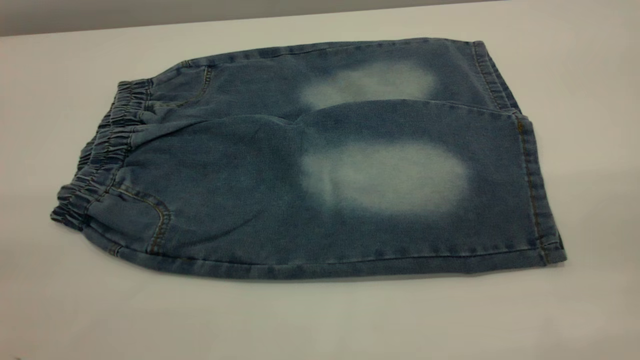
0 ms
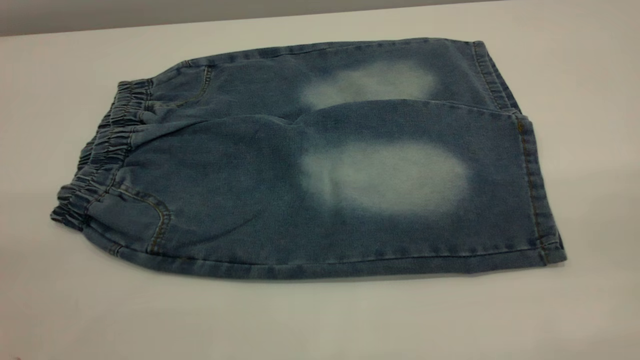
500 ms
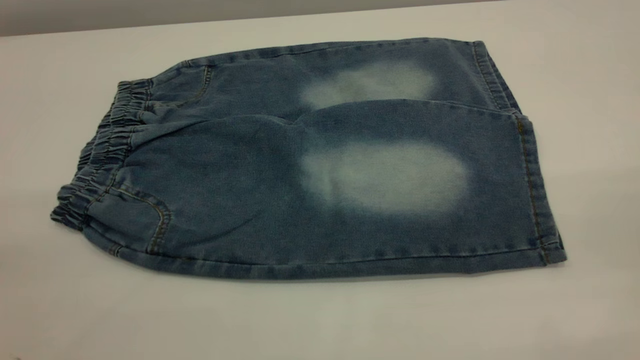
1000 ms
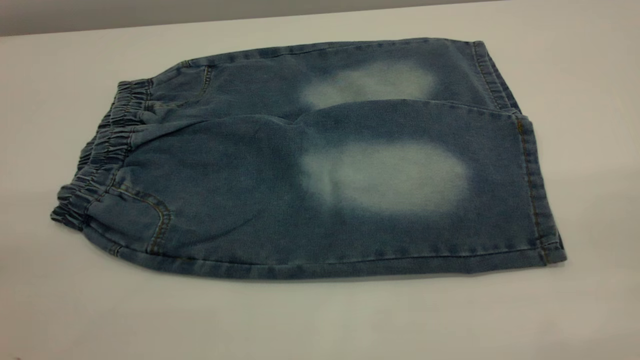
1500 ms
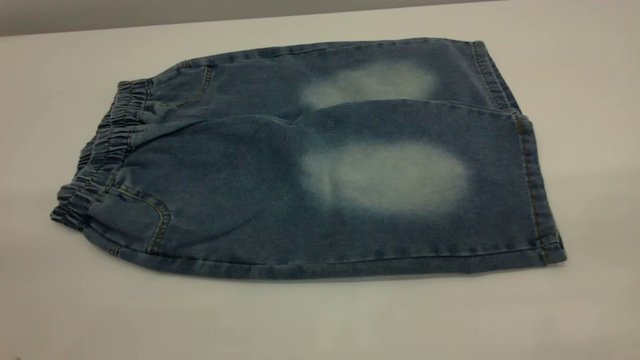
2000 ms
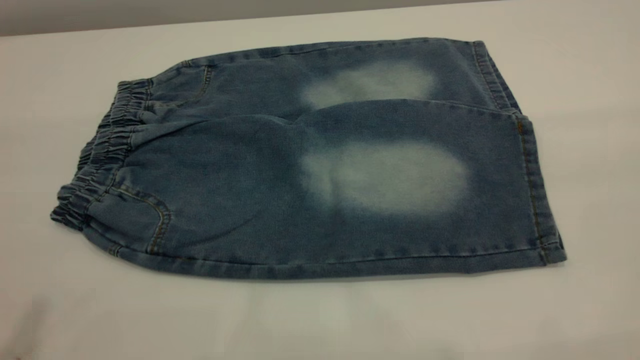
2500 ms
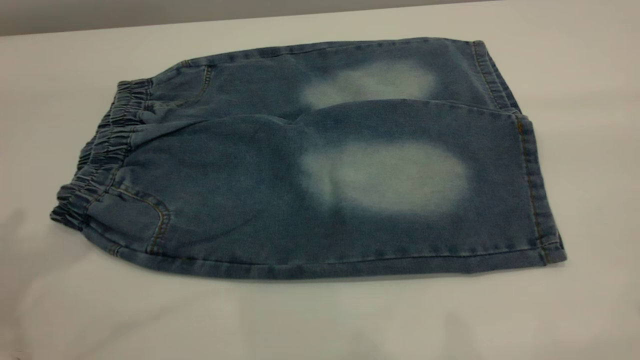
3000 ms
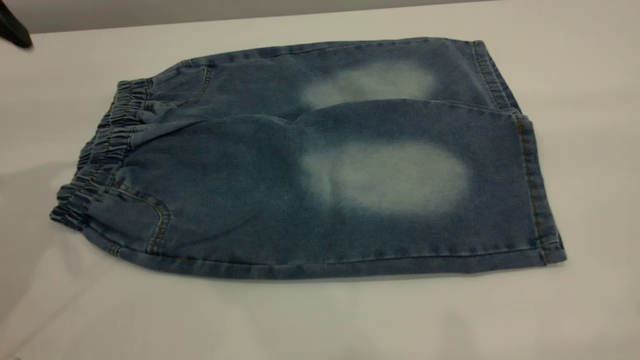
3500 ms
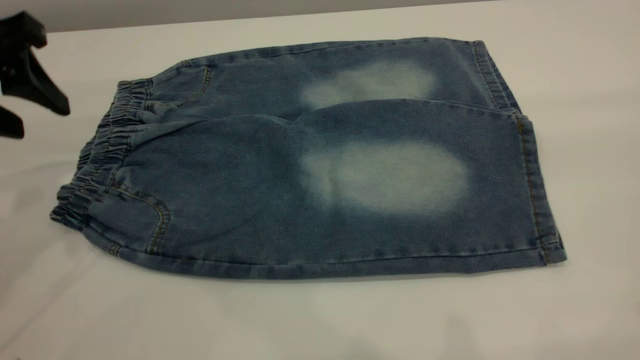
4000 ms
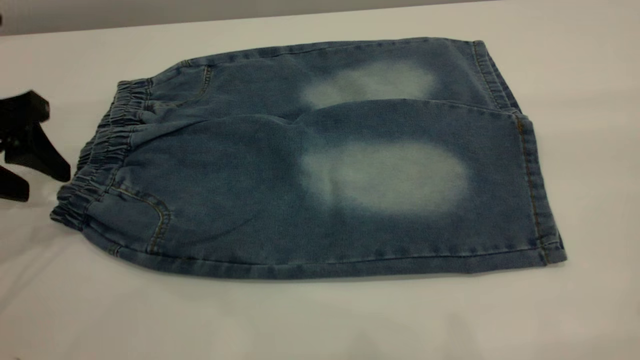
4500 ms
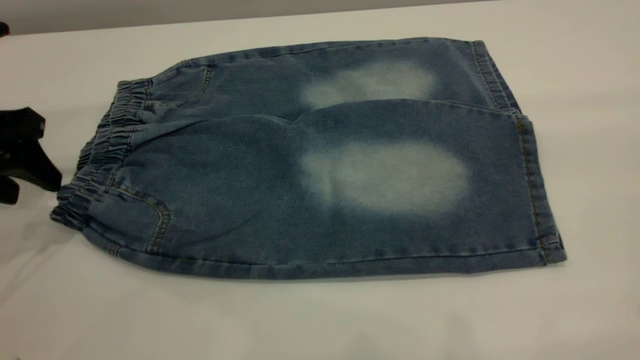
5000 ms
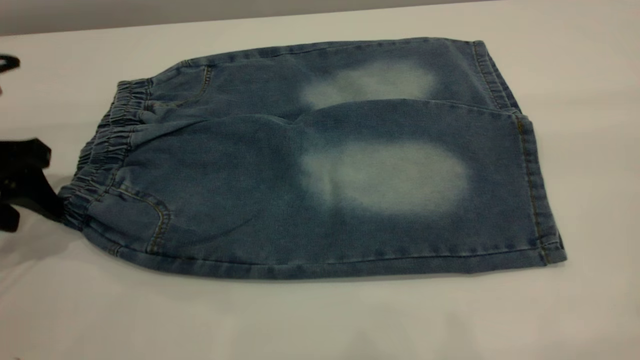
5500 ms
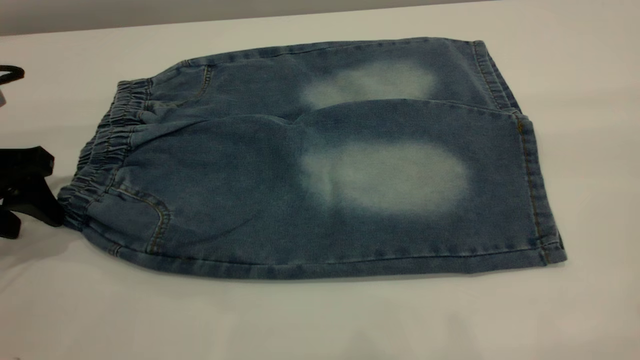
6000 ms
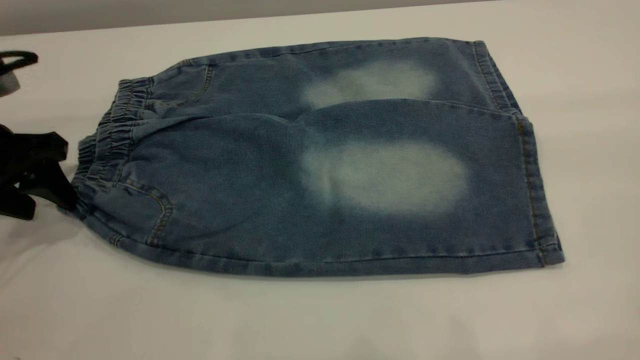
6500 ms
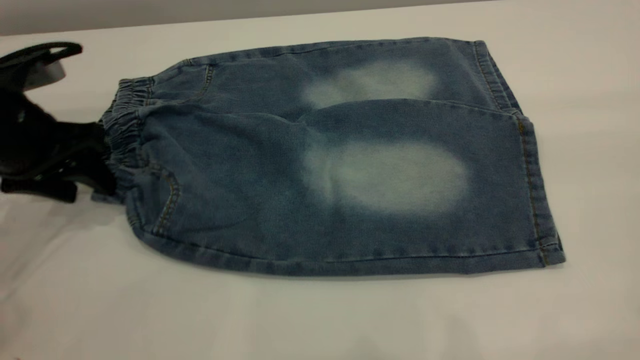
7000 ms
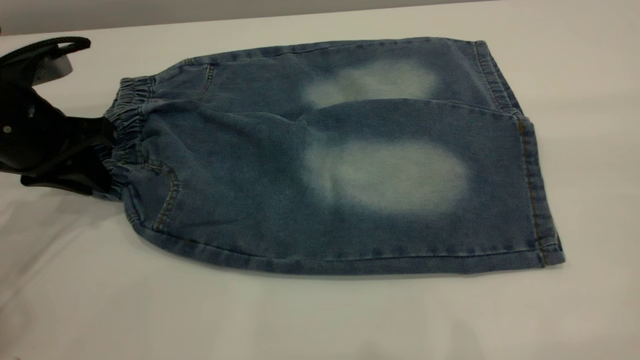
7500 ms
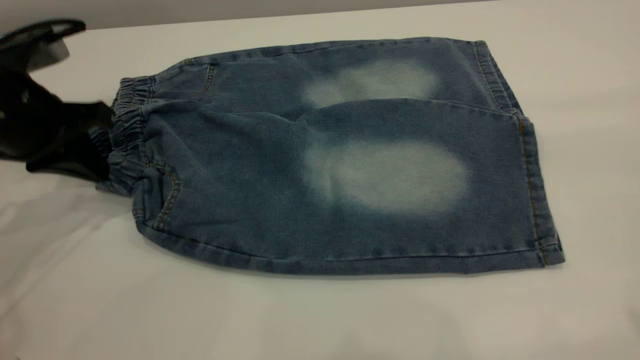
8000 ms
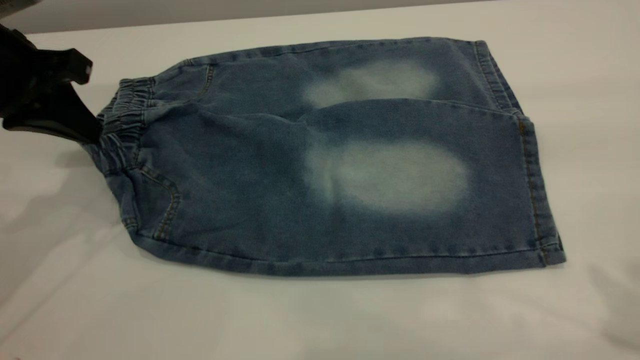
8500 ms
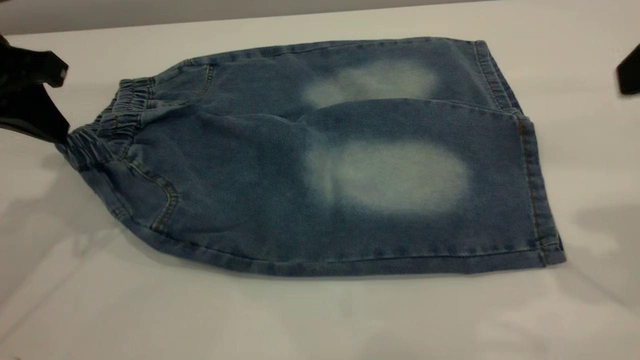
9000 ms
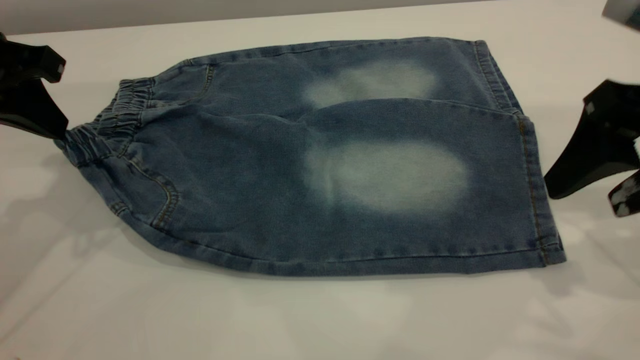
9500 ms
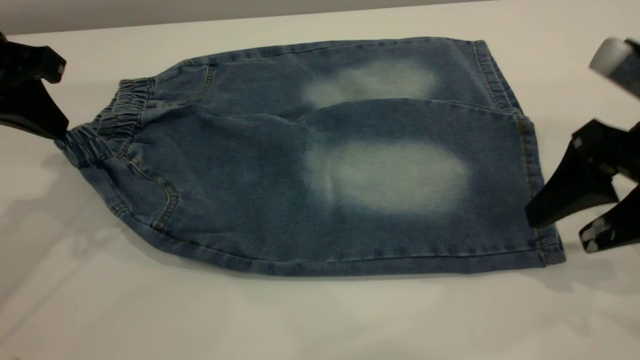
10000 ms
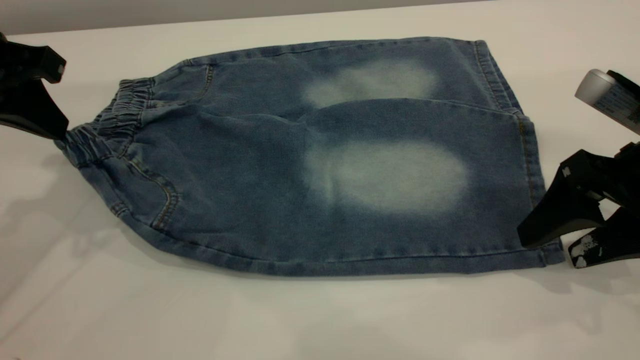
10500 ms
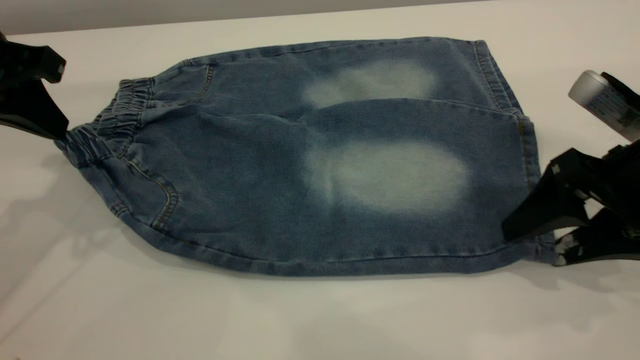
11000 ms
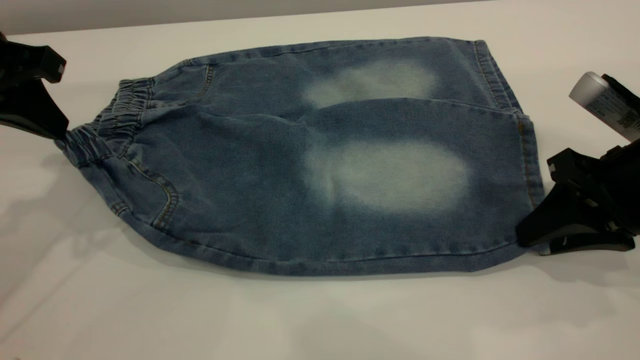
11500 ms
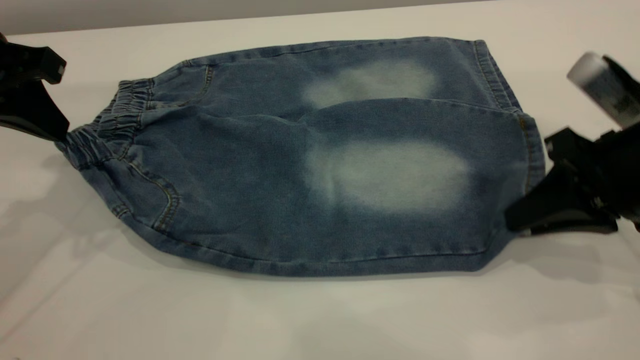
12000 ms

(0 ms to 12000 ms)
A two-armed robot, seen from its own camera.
0 ms - 2000 ms: Both grippers stay put.
2000 ms - 4000 ms: The left gripper moves forward and downward, approximately 30 cm.
4000 ms - 6000 ms: The left gripper travels downward by some 10 cm.
6000 ms - 8000 ms: The left gripper ends up roughly 5 cm from where it was, and closes.
8000 ms - 10000 ms: The left gripper is displaced upward by some 5 cm. Meanwhile the right gripper travels downward and forward by approximately 25 cm.
10000 ms - 12000 ms: The right gripper closes its fingers.

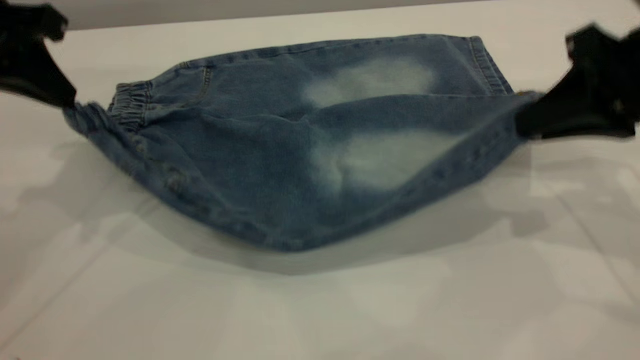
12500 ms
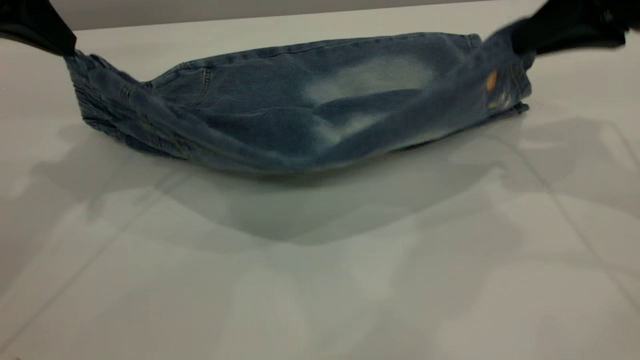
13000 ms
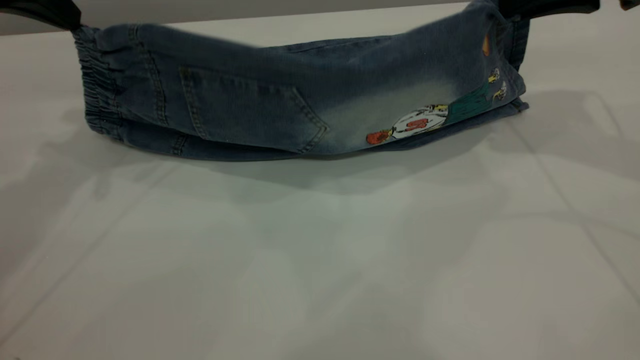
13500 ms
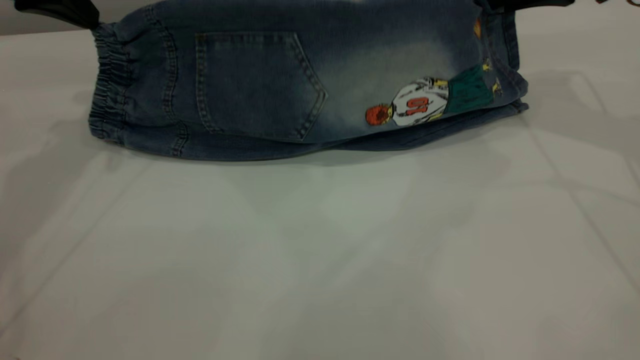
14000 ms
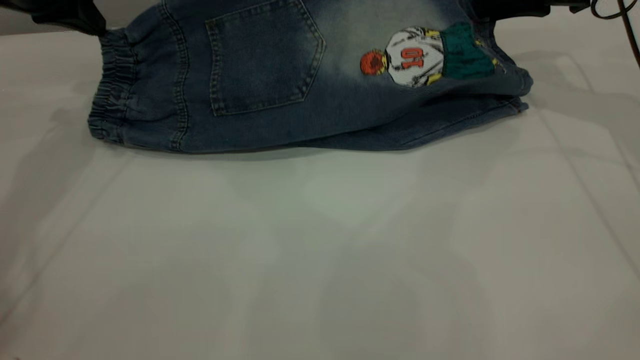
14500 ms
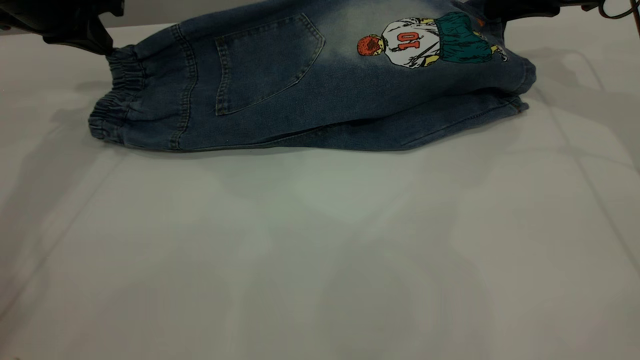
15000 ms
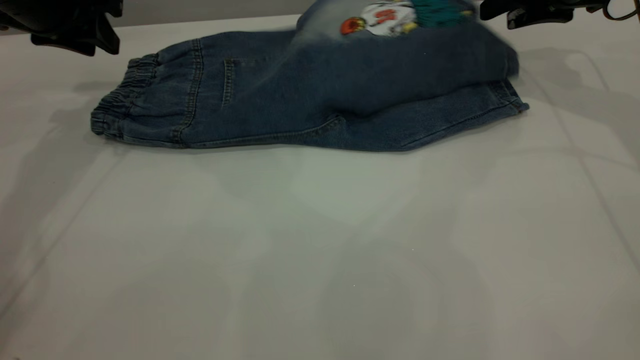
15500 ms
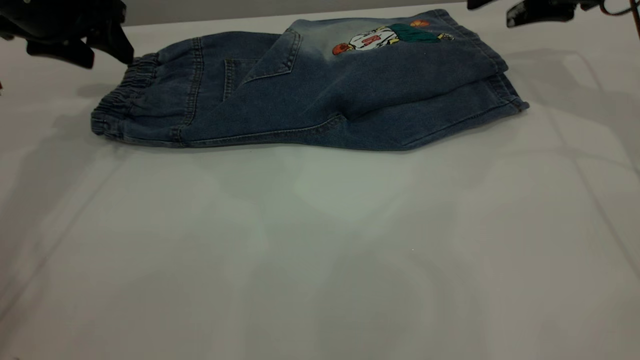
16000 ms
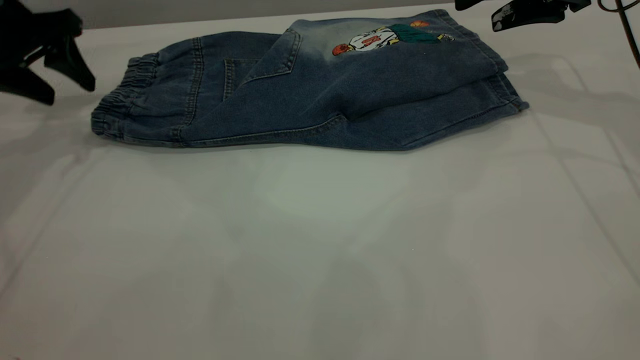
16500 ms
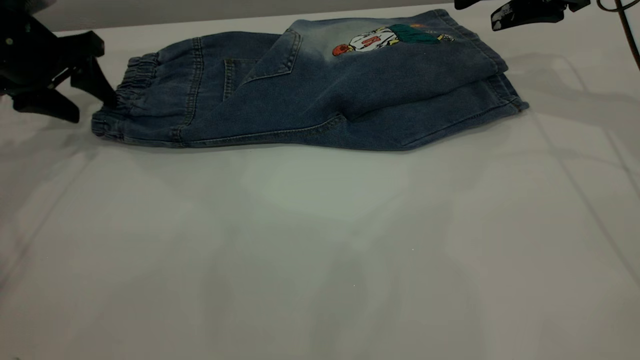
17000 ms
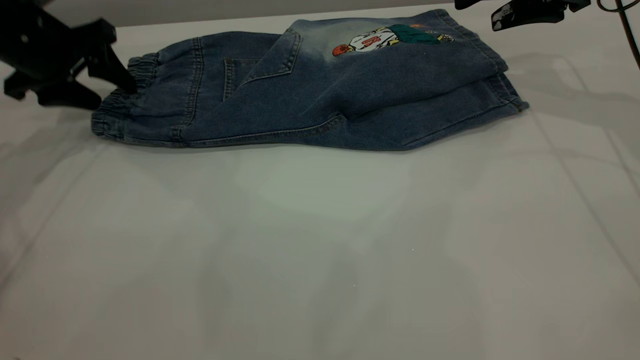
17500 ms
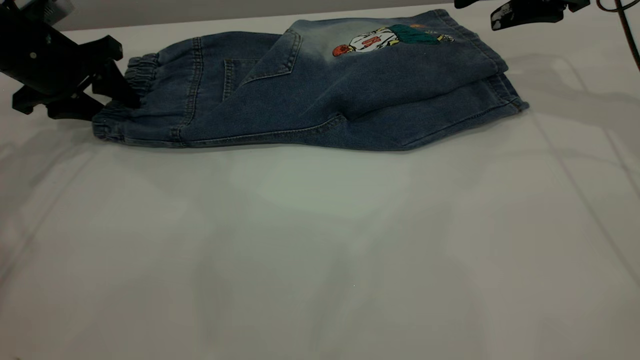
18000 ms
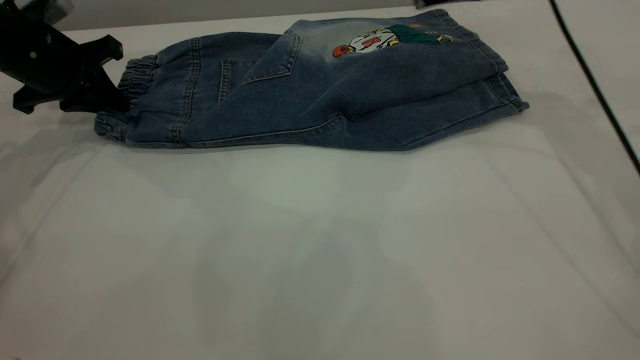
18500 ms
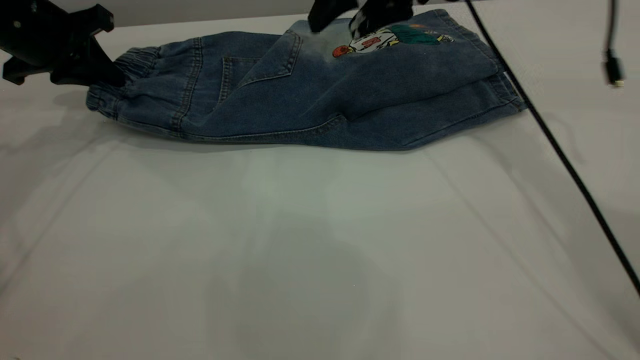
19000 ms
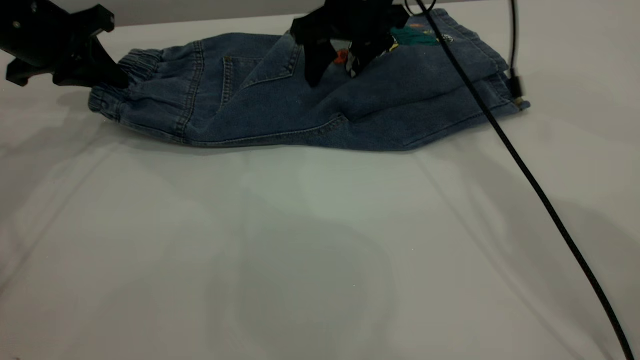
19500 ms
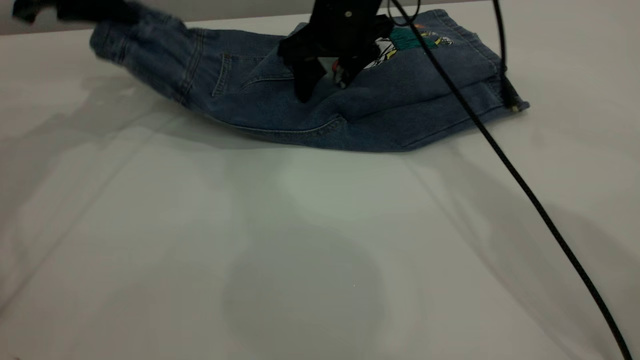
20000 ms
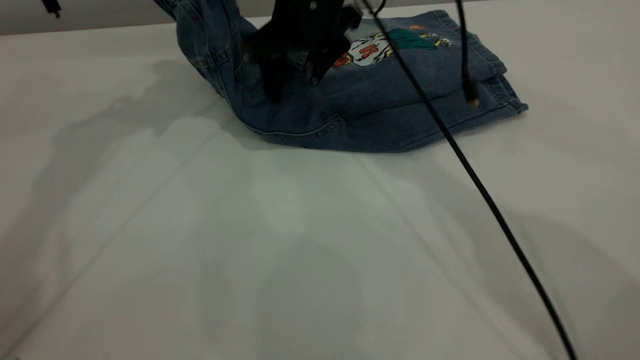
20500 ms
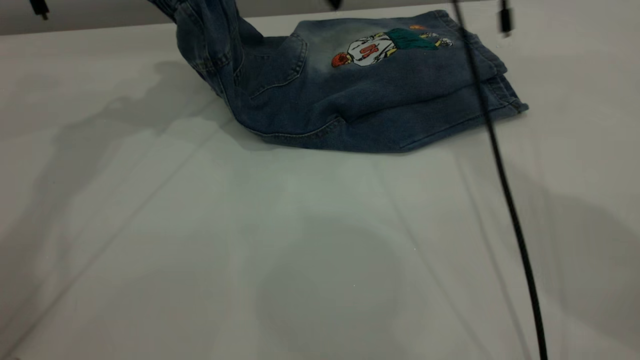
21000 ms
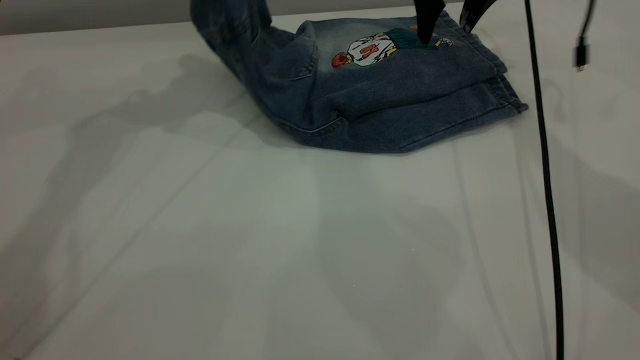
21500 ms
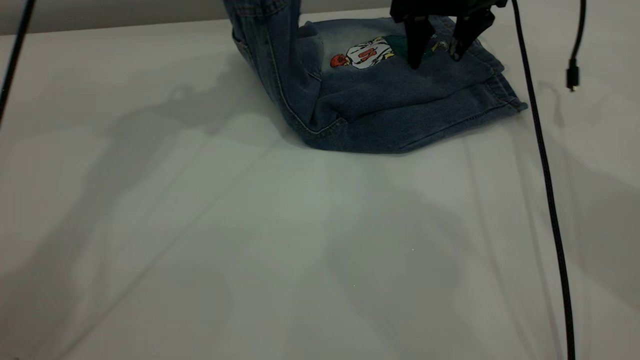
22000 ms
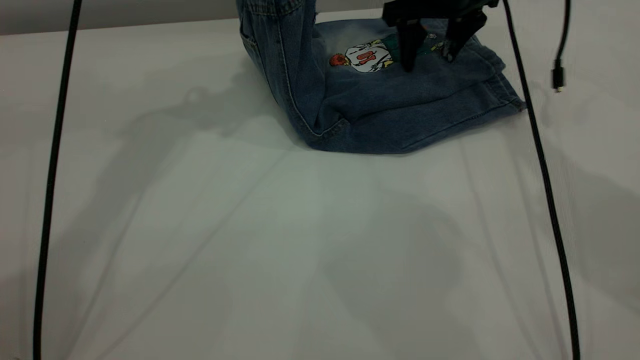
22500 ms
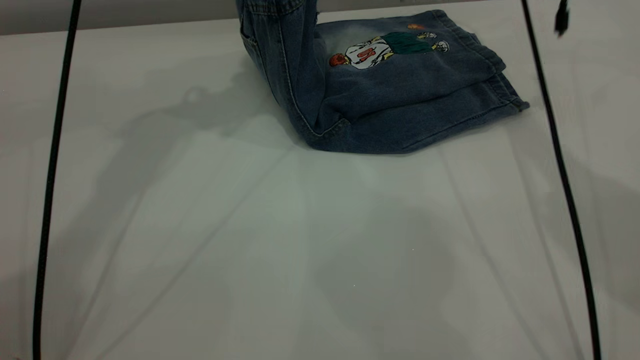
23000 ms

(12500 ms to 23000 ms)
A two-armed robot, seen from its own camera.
Step, 12500 ms - 15500 ms: Fold the bottom of the pants upward.
12500 ms - 14500 ms: The left gripper travels forward by roughly 10 cm. Meanwhile the right gripper goes some 20 cm forward.
14500 ms - 16500 ms: The left gripper changes place by roughly 5 cm, and opens up. Meanwhile the right gripper opens up.
16500 ms - 19000 ms: The right gripper travels to the left by some 15 cm. The left gripper closes.
19000 ms - 21000 ms: The right gripper moves some 10 cm to the left and comes back. Meanwhile the left gripper moves upward and to the right, approximately 15 cm.
21000 ms - 23000 ms: The left gripper goes some 10 cm to the right and upward. The right gripper heads to the right, covering about 5 cm, and reaches some 10 cm downward, then returns.
